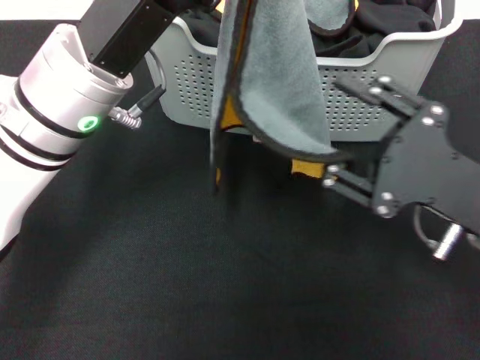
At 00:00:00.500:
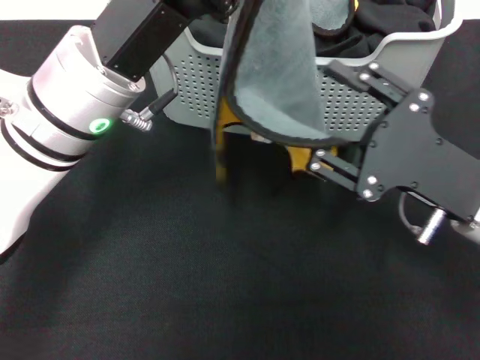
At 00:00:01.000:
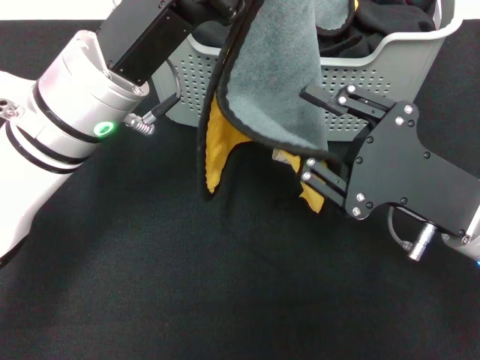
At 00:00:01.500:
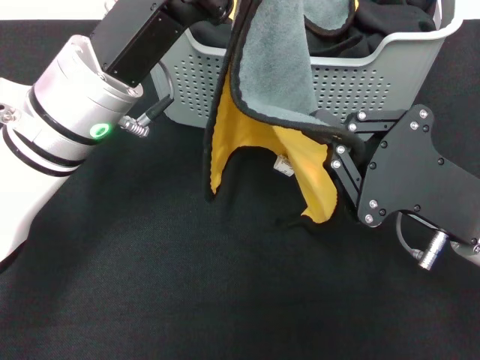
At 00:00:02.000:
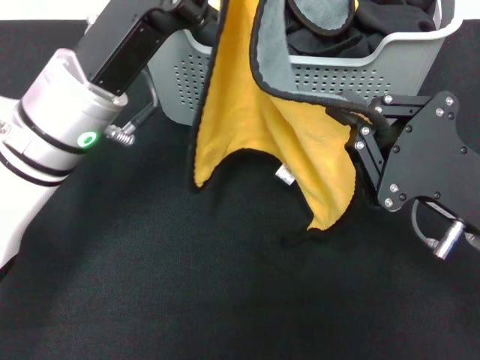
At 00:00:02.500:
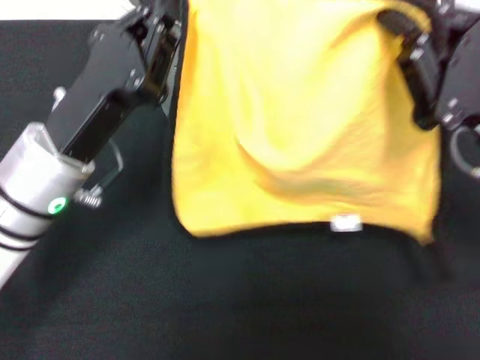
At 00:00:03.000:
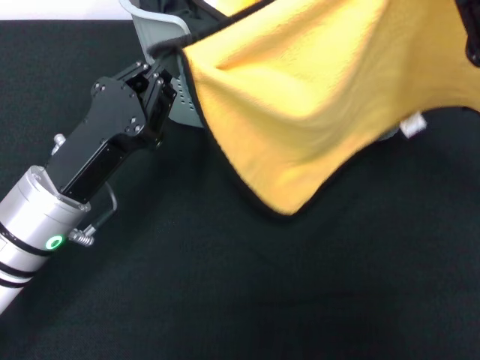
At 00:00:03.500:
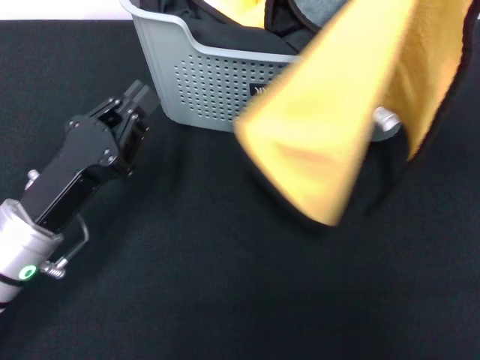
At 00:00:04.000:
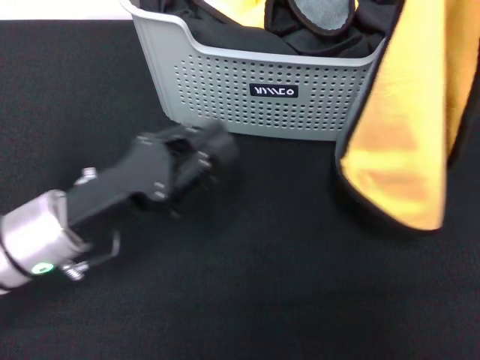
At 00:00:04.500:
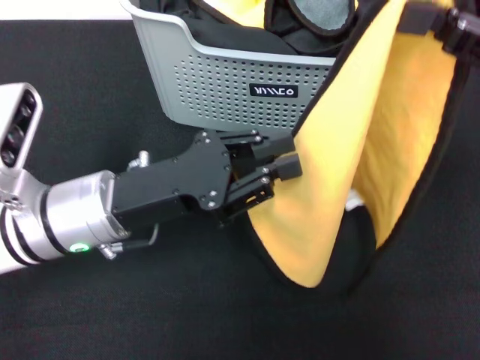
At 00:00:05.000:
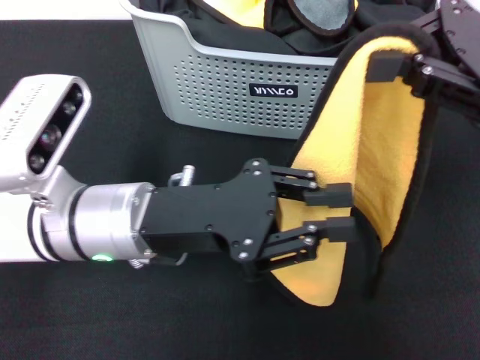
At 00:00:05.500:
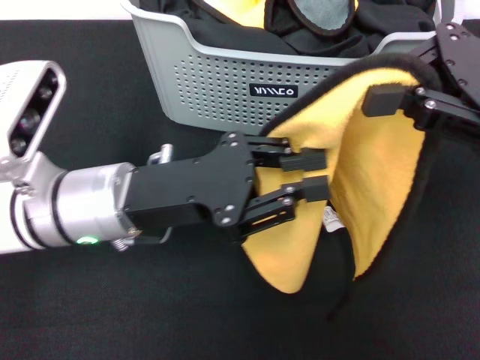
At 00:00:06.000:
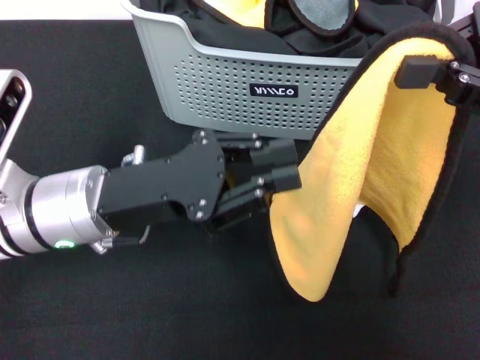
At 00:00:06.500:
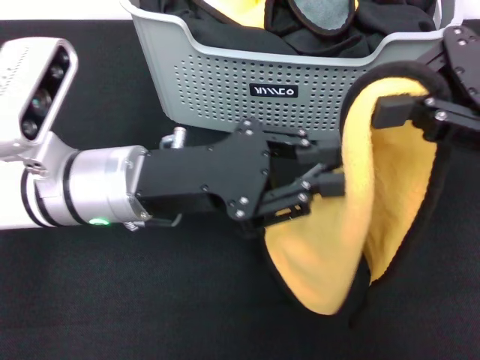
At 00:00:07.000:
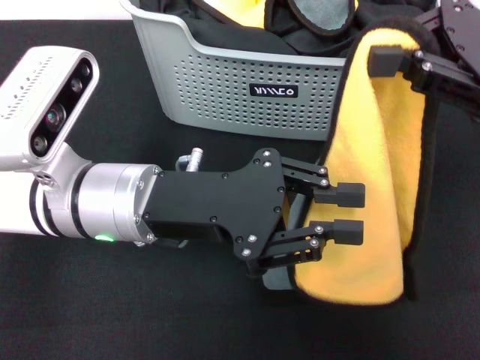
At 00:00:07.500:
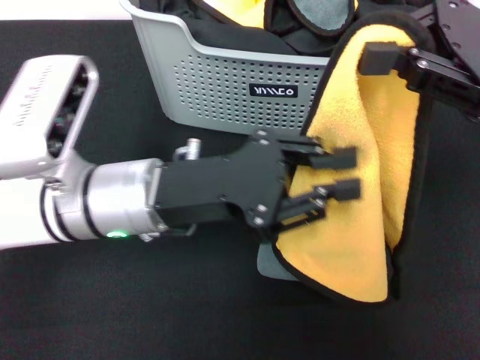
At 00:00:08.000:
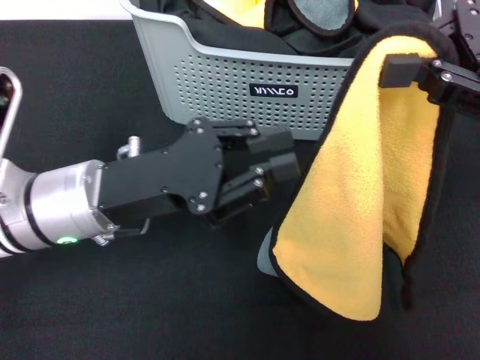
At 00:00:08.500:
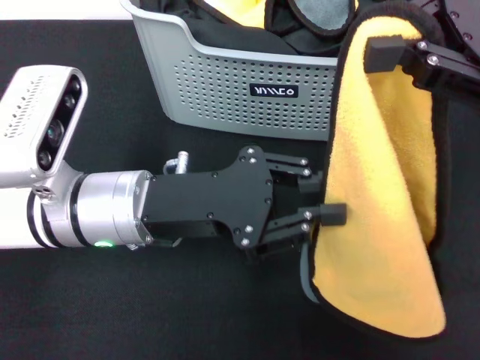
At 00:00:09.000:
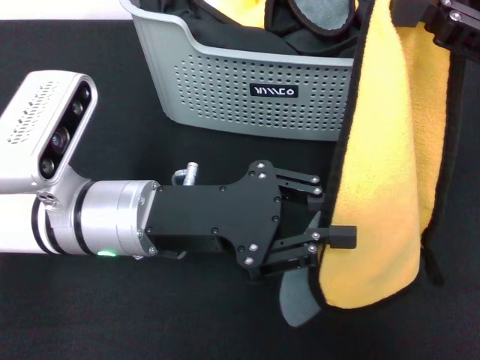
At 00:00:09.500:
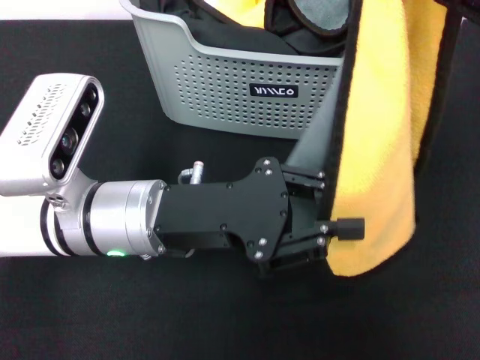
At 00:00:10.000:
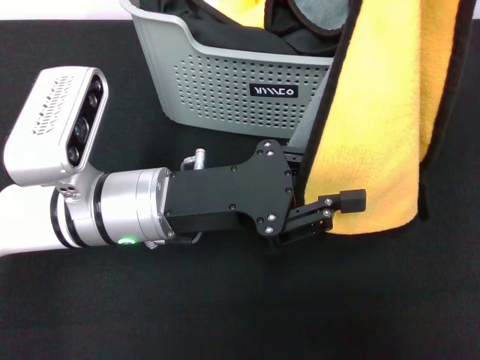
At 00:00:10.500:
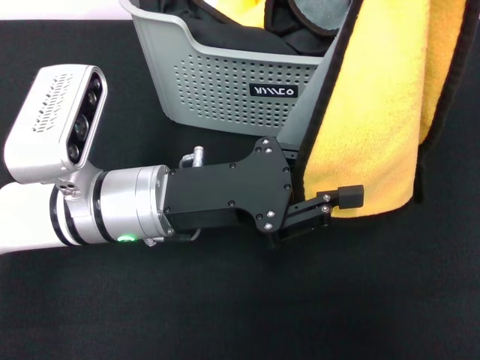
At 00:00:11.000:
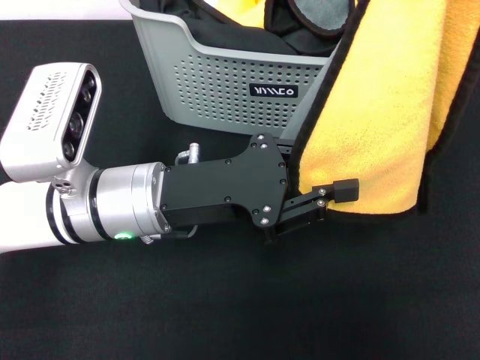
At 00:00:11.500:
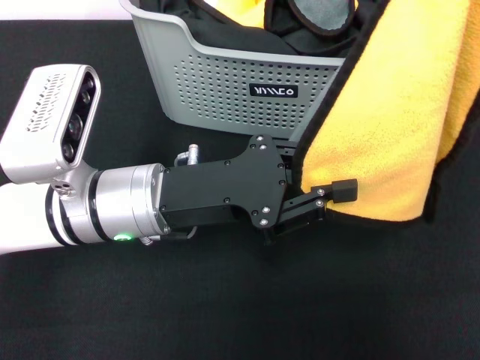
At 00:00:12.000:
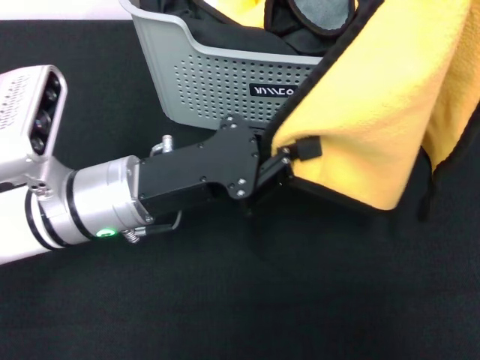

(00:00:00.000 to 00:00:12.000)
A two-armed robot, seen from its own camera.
Task of the whole recording: pick up the towel from the storage box and lay it flat on the black tablecloth.
00:00:00.000 - 00:00:02.000: The right gripper closes up.
00:00:02.000 - 00:00:04.000: The right gripper moves upward, forward and to the right, about 15 cm. The left gripper shifts approximately 10 cm downward, backward and to the left.
00:00:04.000 - 00:00:06.000: The left gripper shifts by some 5 cm.
00:00:06.000 - 00:00:08.000: The grippers make only small movements.

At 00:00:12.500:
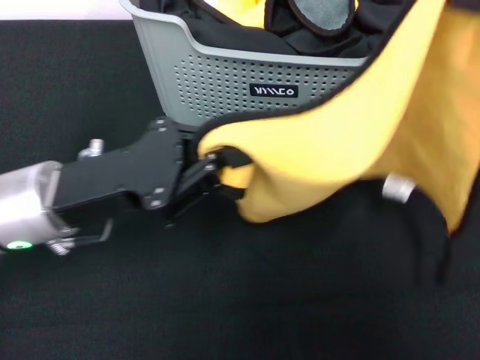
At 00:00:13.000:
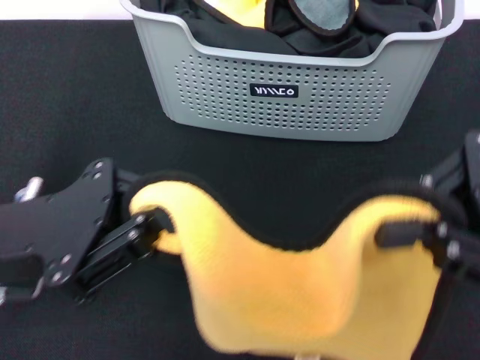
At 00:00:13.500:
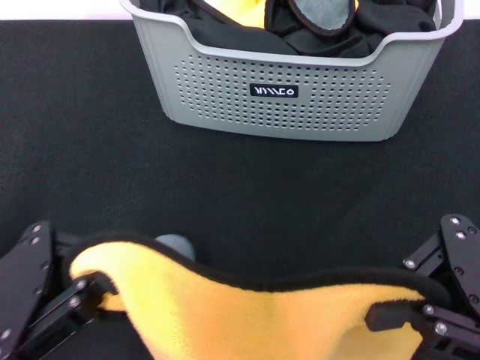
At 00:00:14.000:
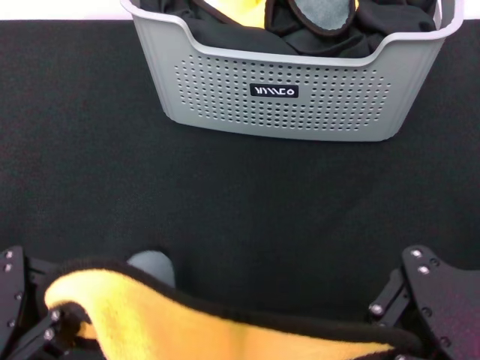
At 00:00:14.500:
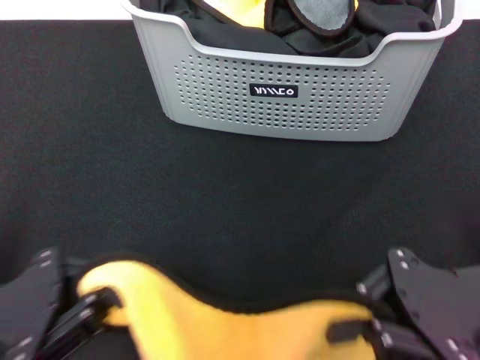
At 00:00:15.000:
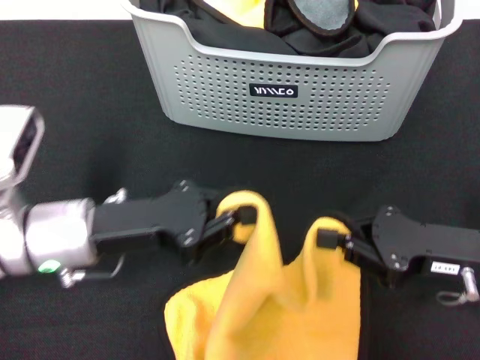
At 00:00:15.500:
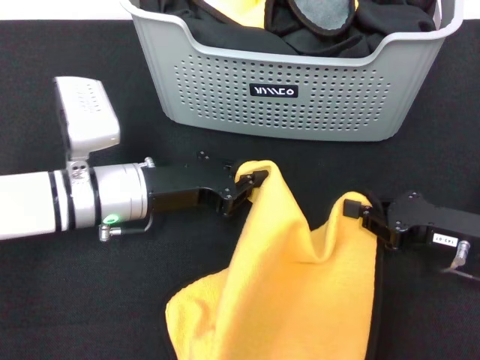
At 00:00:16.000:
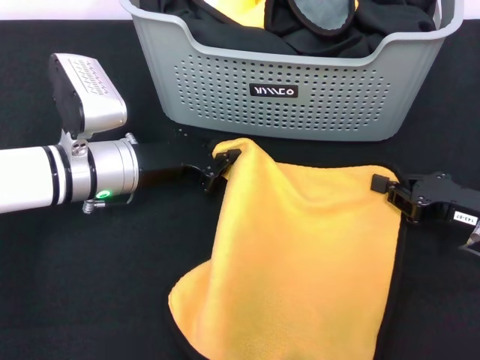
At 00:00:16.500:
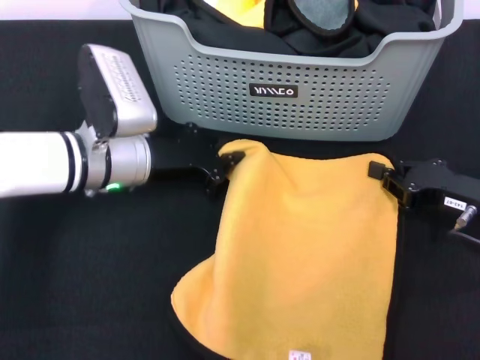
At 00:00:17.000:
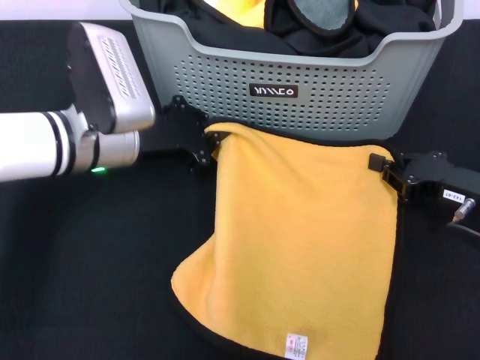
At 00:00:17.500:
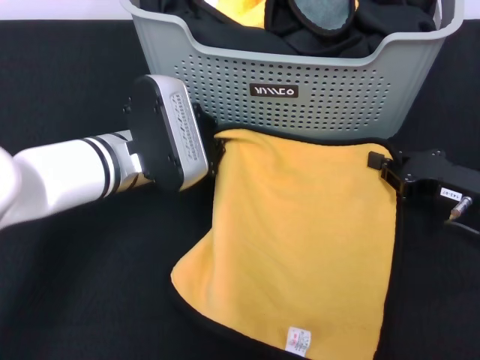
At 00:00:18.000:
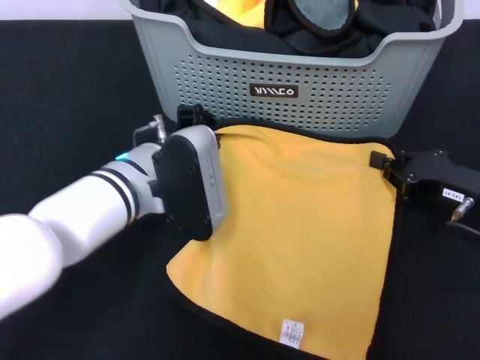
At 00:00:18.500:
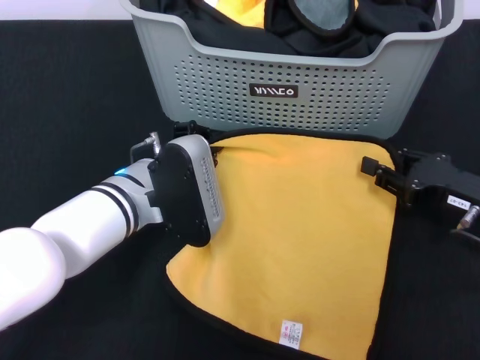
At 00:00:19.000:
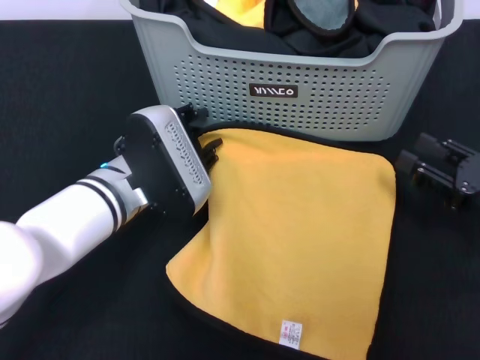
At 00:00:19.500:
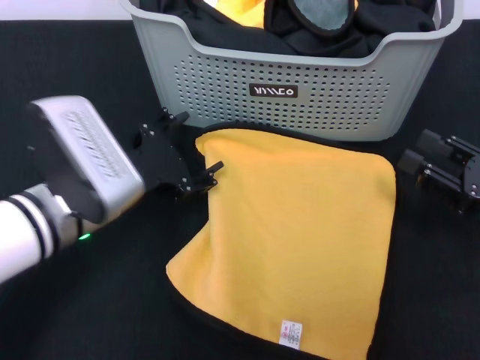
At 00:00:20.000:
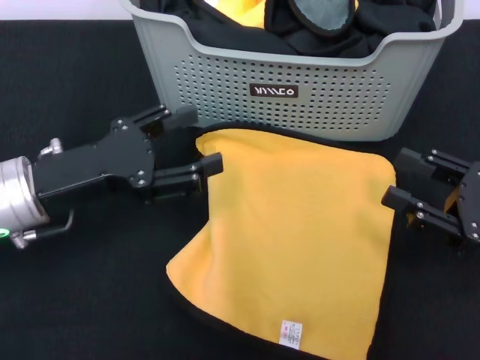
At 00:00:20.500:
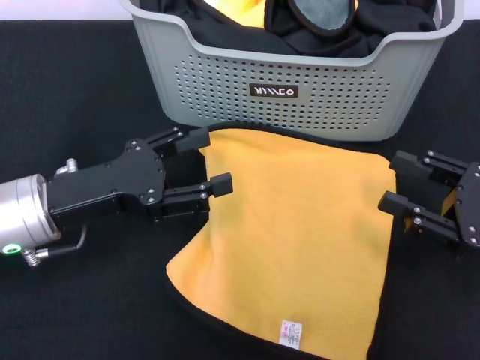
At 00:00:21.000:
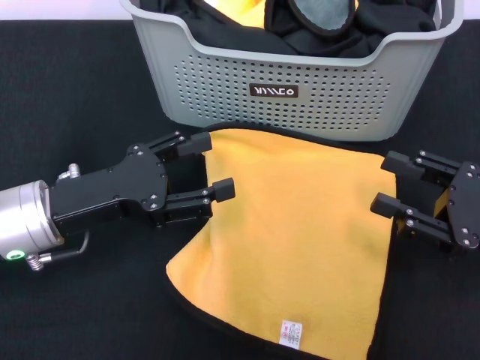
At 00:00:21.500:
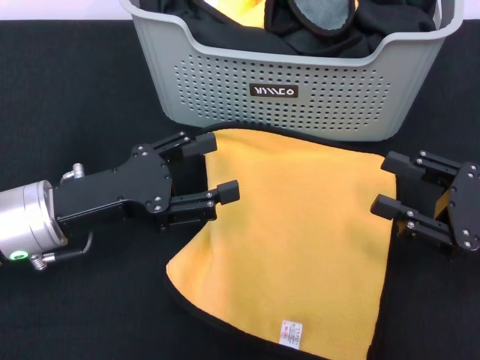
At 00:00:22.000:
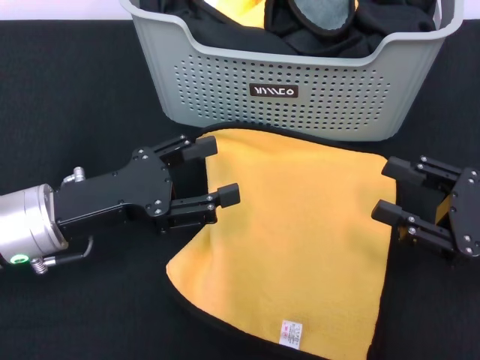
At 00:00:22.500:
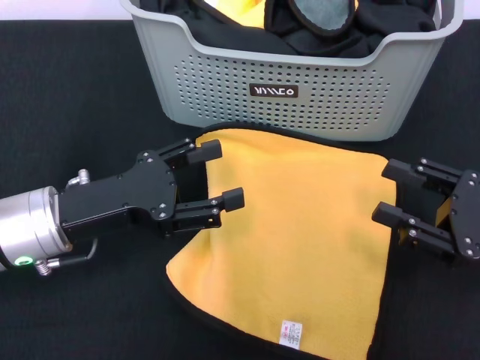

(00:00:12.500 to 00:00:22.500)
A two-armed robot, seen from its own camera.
Task of the whole recording: pick up the towel from the storage box and lay it flat on the black tablecloth.
Step, 00:00:12.500 - 00:00:19.000: Spread the towel flat with the right gripper.
00:00:12.500 - 00:00:14.500: The right gripper moves downward, backward and to the left, approximately 15 cm. The left gripper heads backward and to the left, covering roughly 15 cm.
00:00:14.500 - 00:00:16.500: The right gripper goes approximately 10 cm forward and downward. The left gripper heads forward and to the right, covering approximately 20 cm.
00:00:16.500 - 00:00:18.500: The left gripper moves some 5 cm.
00:00:18.500 - 00:00:20.500: The right gripper is displaced backward by about 5 cm, and opens its fingers; the left gripper goes about 10 cm to the left, and opens up.
00:00:20.500 - 00:00:22.500: Both grippers stay put.
